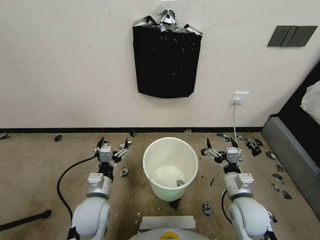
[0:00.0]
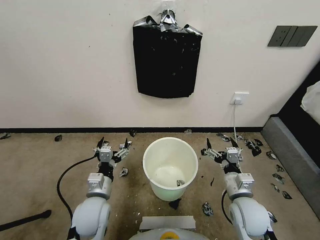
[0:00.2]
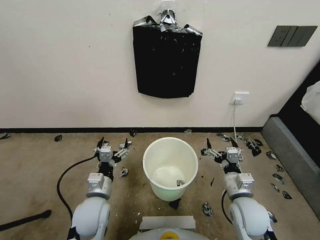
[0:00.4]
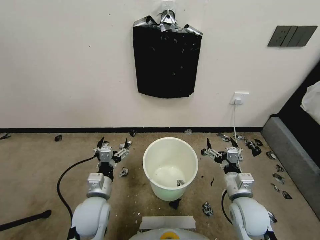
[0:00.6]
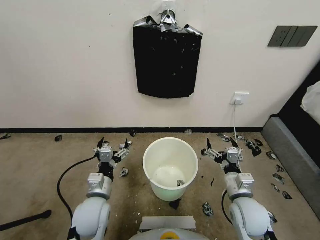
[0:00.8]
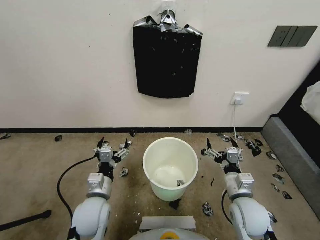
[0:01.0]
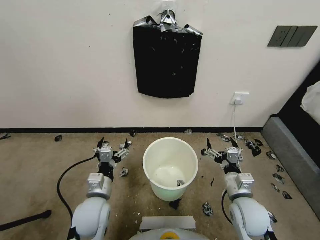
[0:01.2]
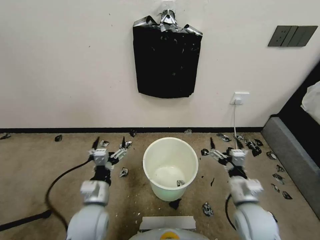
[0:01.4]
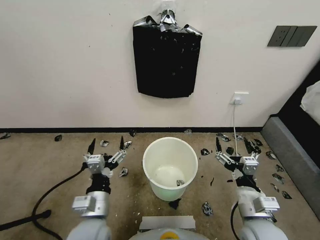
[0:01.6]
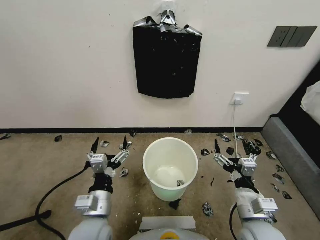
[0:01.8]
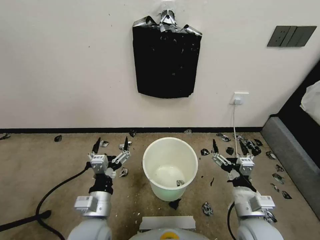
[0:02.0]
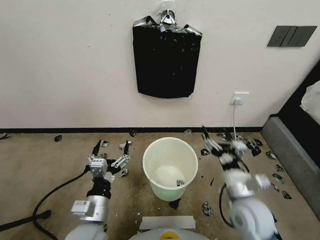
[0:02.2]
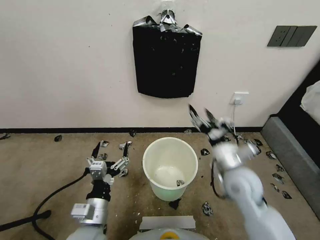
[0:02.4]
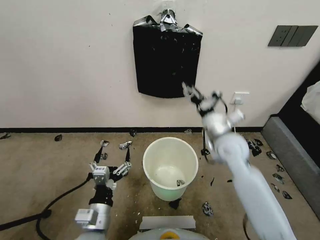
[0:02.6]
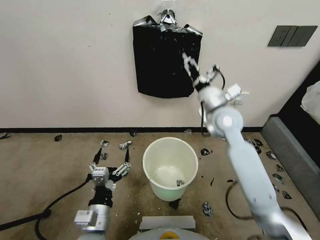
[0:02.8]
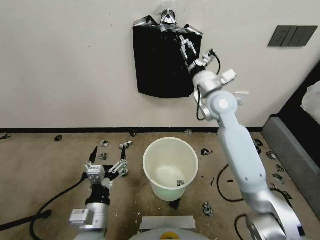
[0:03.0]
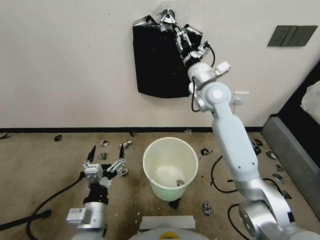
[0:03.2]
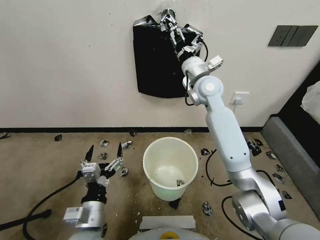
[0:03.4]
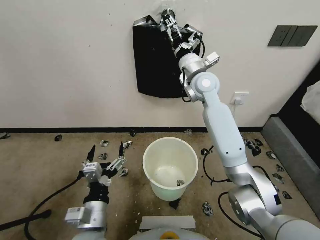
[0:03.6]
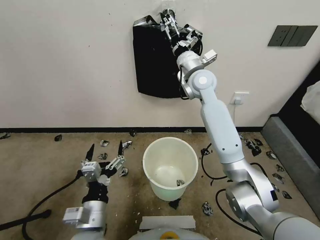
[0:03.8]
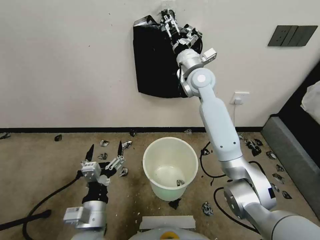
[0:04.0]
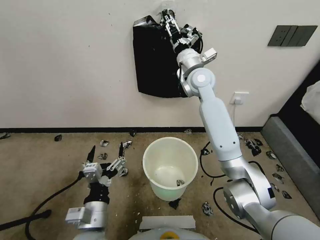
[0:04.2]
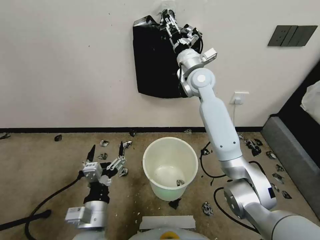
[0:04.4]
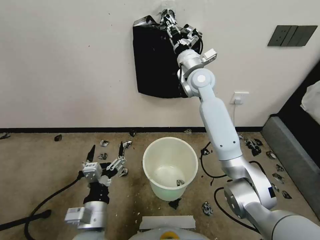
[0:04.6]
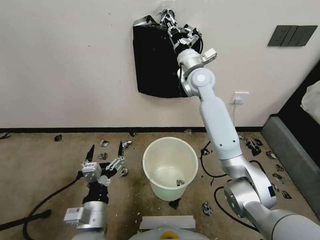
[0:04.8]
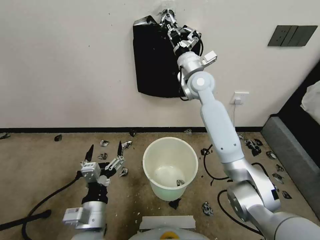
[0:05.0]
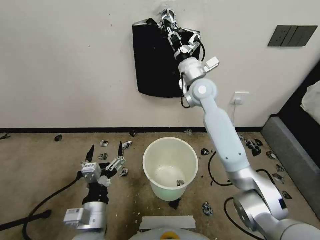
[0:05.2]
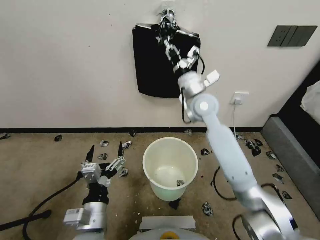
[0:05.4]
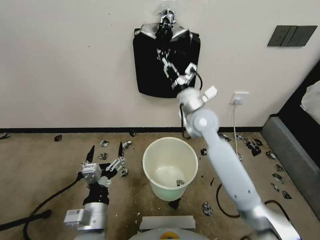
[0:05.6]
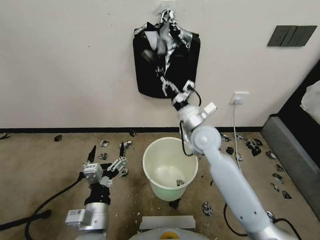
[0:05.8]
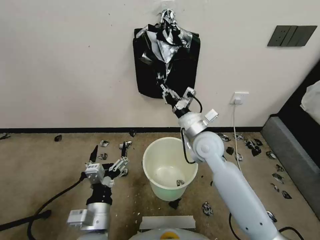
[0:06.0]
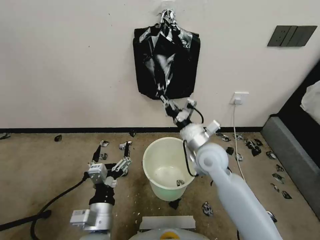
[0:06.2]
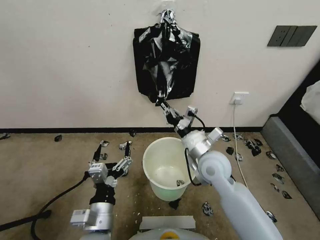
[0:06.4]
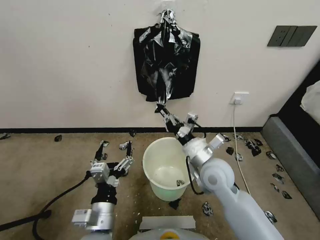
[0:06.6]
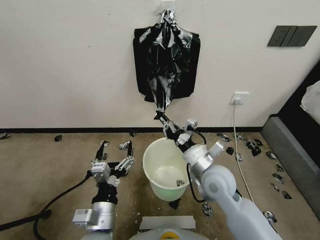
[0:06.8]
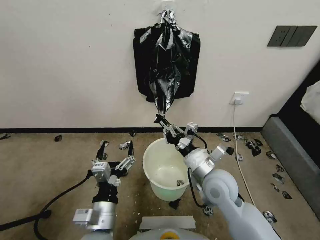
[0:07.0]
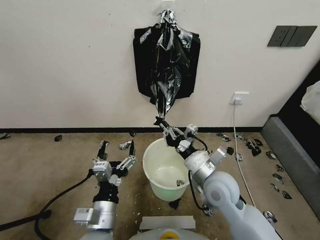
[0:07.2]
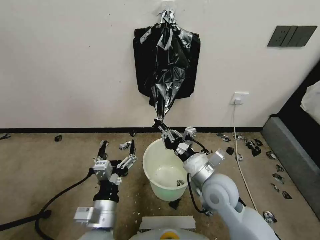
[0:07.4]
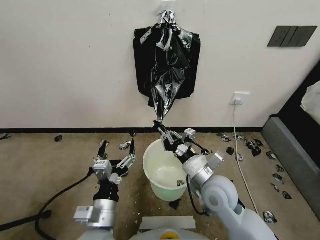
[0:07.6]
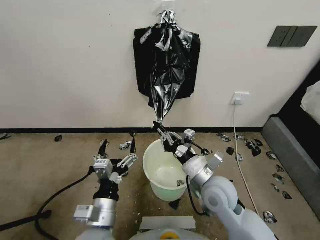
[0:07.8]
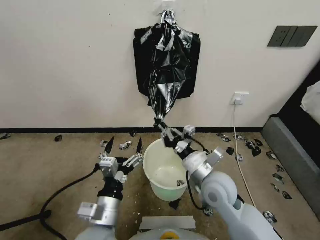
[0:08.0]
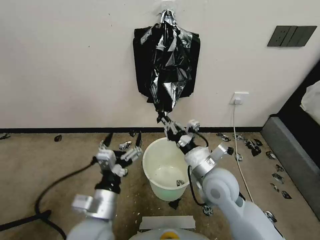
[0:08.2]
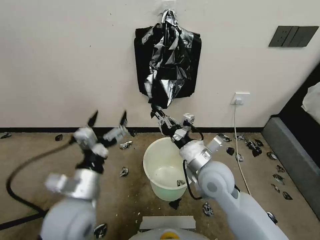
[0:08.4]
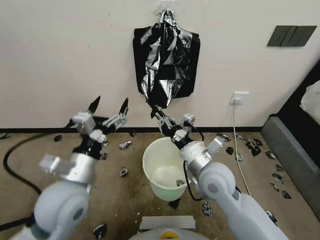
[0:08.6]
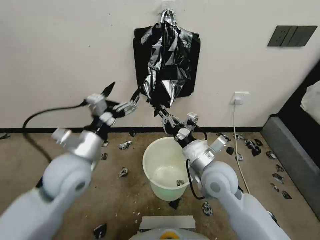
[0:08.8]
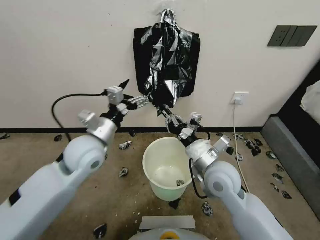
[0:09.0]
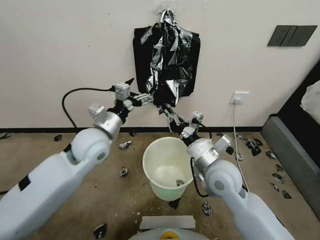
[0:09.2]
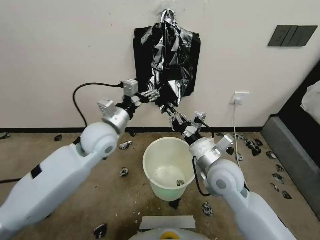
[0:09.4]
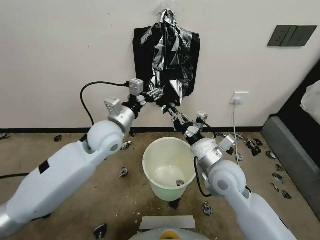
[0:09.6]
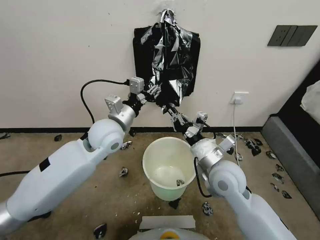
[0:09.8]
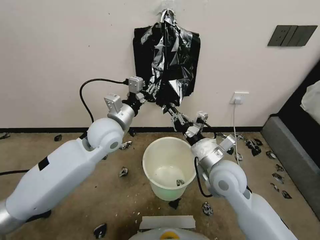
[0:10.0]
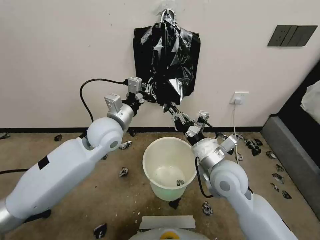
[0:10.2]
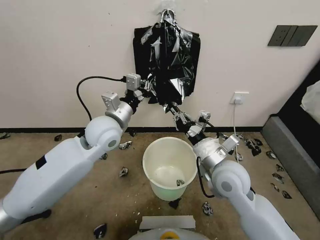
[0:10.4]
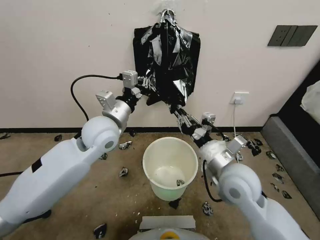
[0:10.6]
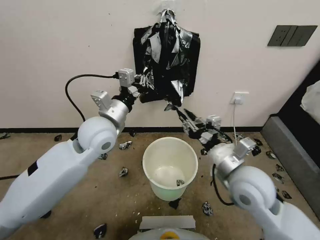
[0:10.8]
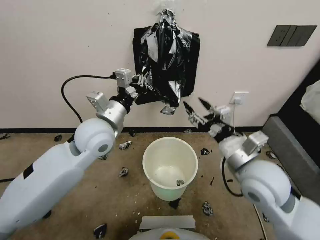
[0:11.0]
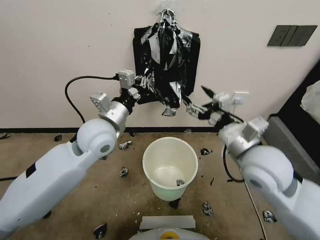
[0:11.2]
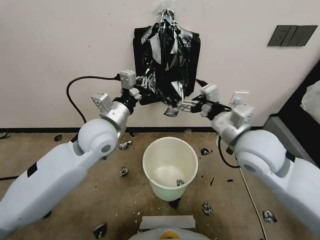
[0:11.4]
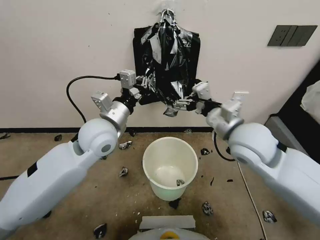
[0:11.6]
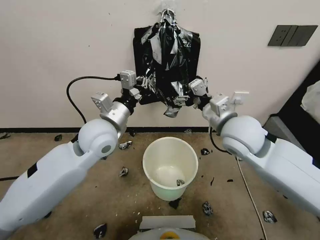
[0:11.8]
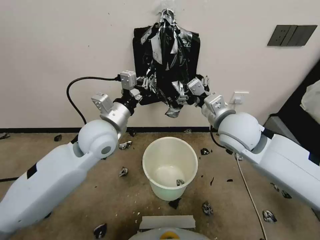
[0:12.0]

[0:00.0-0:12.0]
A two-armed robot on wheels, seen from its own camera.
Task of the whole recording: Place a trash bag onto the trash bin.
0:01.6 to 0:03.0: The right gripper moves forward and upward, roughly 35 cm.
0:03.0 to 0:04.4: The right gripper goes roughly 10 cm forward, and closes its fingers.
0:04.4 to 0:06.0: The right gripper goes approximately 20 cm backward and downward, and closes.
0:06.0 to 0:07.6: The right gripper goes roughly 15 cm backward and downward.
0:07.6 to 0:09.0: The left gripper is displaced forward and upward by about 20 cm.
0:09.0 to 0:10.4: The left gripper is displaced forward by some 5 cm, and closes.
0:10.4 to 0:12.0: The right gripper travels upward and forward by roughly 15 cm, and opens up.

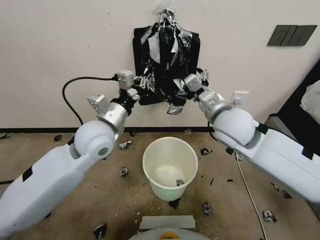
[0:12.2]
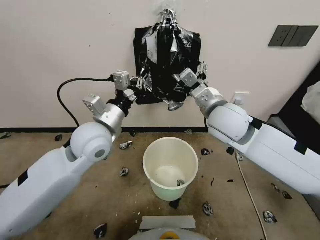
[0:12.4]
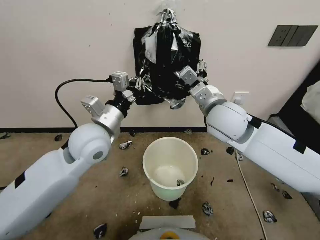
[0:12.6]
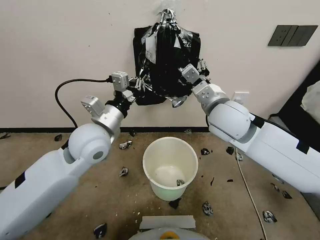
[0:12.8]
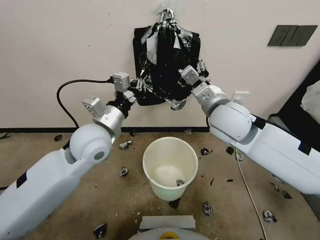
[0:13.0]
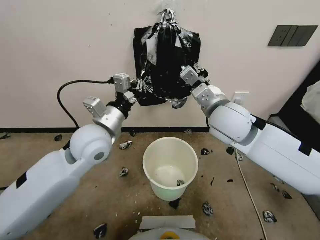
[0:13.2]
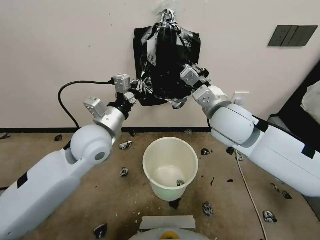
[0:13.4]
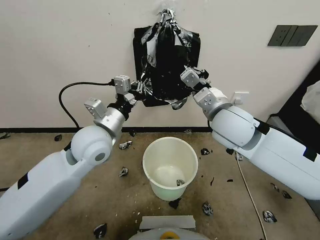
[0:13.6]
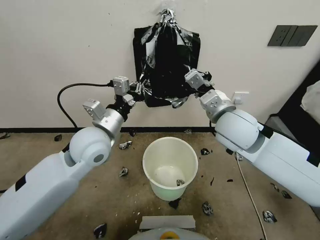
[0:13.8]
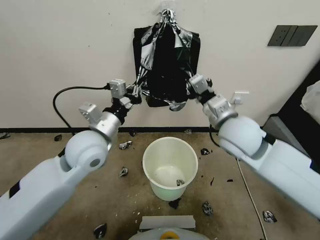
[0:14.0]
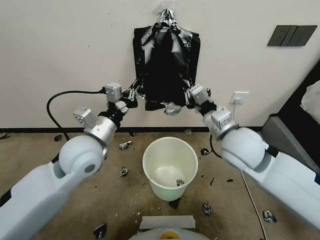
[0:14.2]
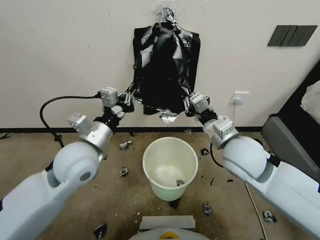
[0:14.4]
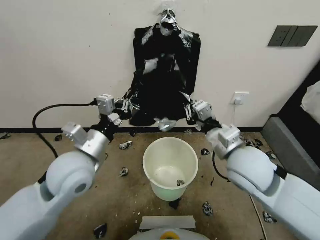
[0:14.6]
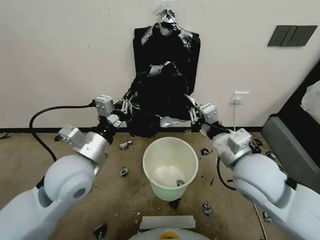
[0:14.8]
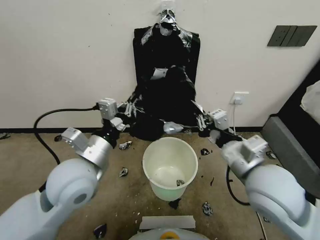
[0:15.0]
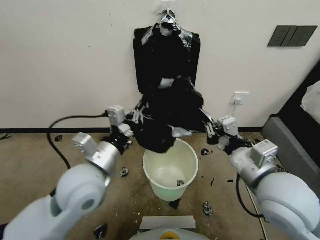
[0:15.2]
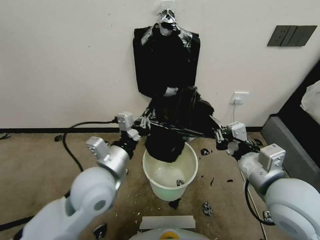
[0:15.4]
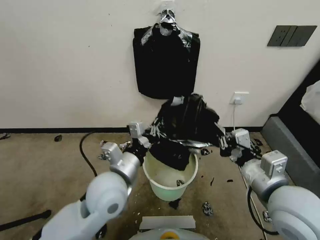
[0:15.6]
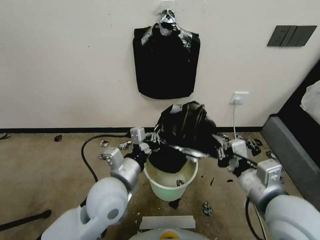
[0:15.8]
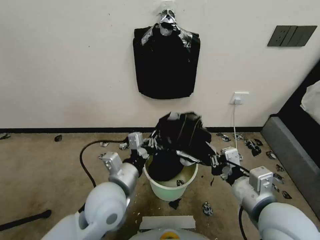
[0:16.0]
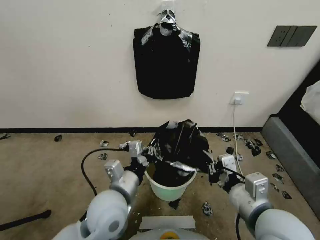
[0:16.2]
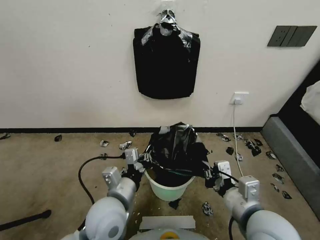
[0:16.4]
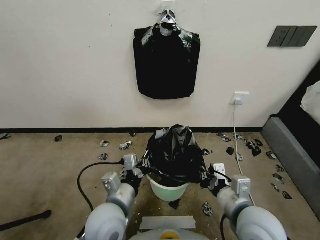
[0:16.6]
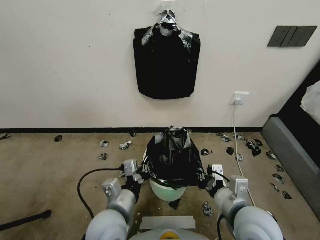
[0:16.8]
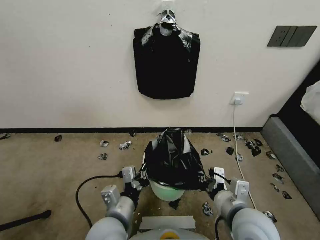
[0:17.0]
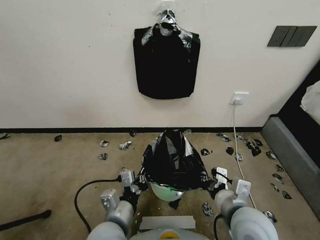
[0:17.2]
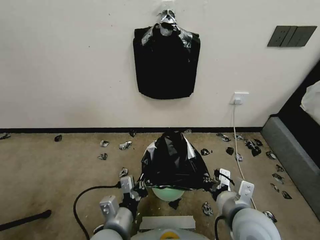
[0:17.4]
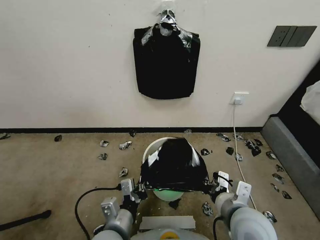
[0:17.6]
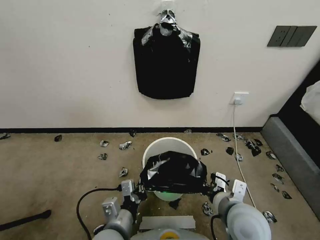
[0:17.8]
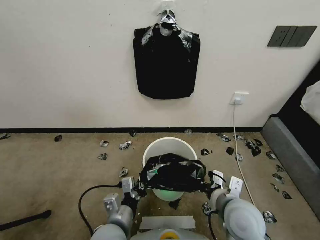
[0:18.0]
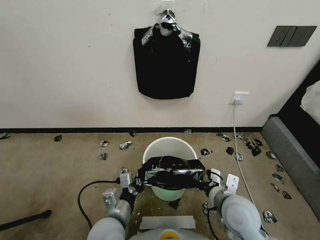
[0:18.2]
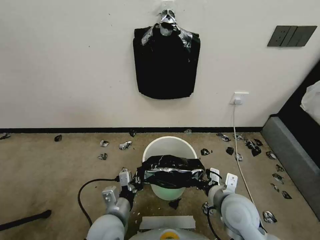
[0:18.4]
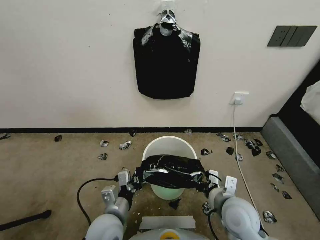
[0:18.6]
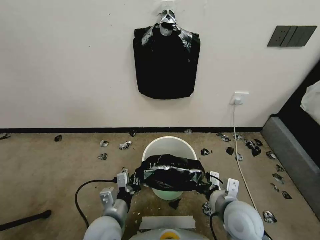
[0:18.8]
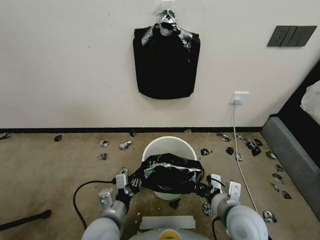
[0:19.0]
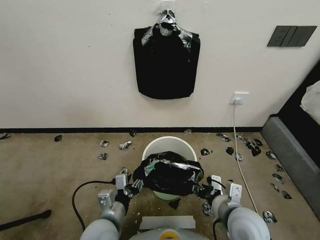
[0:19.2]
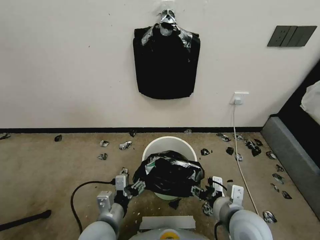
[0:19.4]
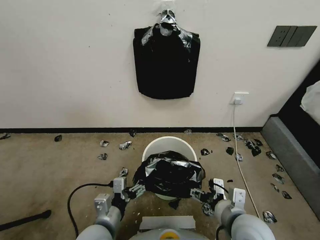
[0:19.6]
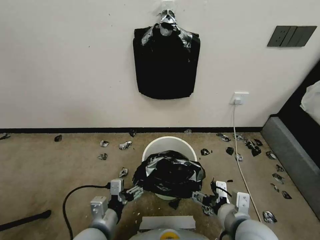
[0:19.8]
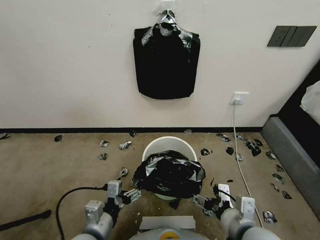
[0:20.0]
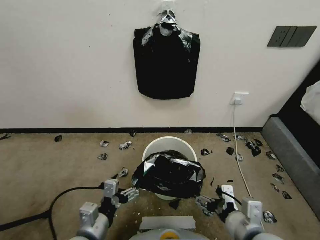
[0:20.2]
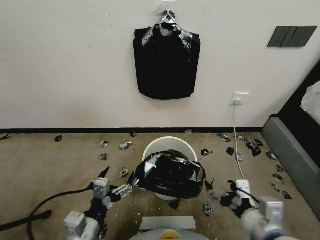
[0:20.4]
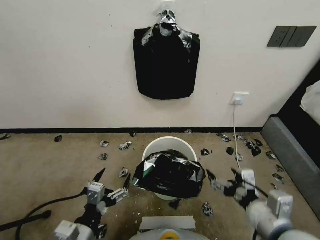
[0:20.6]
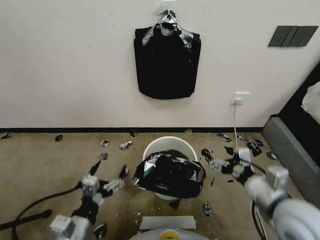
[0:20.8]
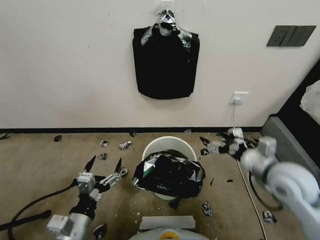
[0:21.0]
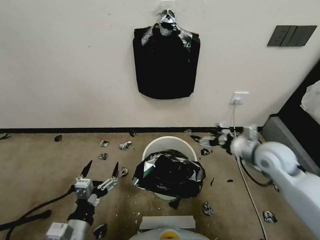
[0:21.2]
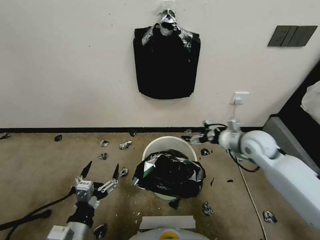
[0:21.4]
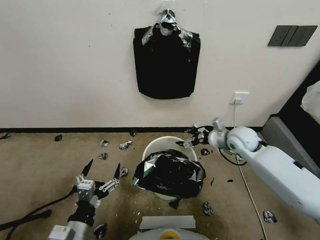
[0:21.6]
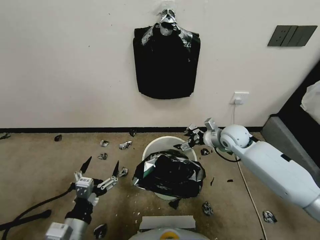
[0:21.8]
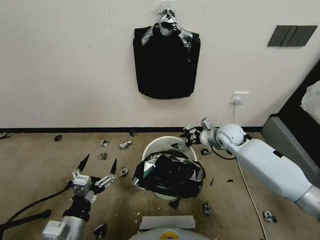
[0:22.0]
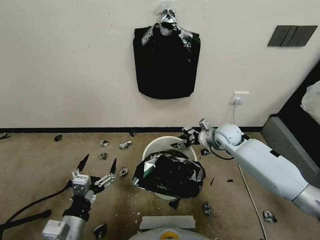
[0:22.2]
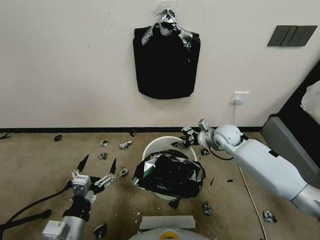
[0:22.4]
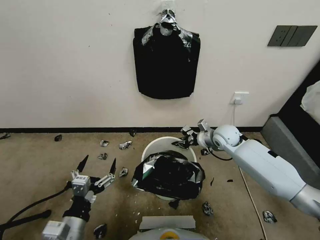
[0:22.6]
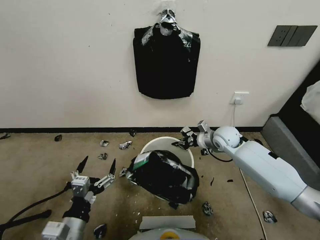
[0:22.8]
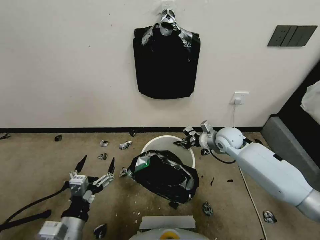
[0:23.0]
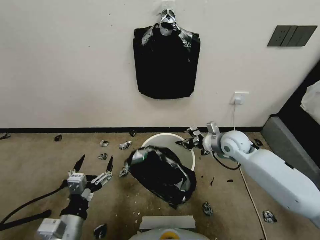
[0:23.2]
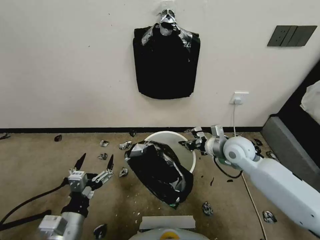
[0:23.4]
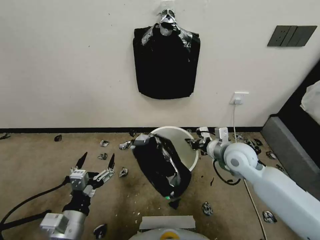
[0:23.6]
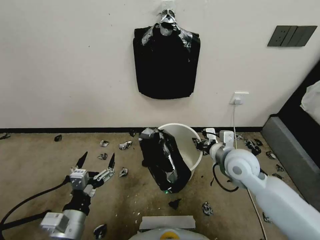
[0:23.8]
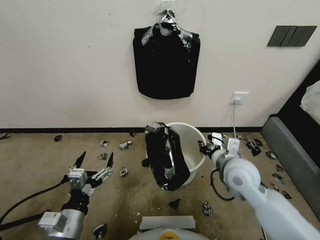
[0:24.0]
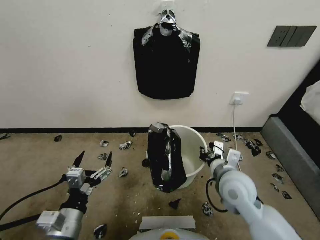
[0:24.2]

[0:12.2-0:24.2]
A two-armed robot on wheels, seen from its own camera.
Task of the whole recording: Place a trash bag onto the trash bin.
0:12.2 to 0:13.8: The right gripper closes up.
0:13.8 to 0:15.2: The right gripper moves backward and to the right, approximately 15 cm, while the left gripper shifts some 10 cm backward.
0:15.2 to 0:16.6: The left gripper moves downward and backward, about 10 cm; the right gripper shifts approximately 10 cm downward.
0:16.6 to 0:18.2: The grippers both shift downward by approximately 5 cm.
0:18.2 to 0:19.8: The left gripper opens its fingers, while the right gripper is displaced backward by some 5 cm, and opens its fingers.
0:19.8 to 0:21.2: The right gripper goes about 20 cm forward and to the right. The left gripper travels to the left by some 5 cm.
0:21.2 to 0:22.6: The right gripper heads forward, downward and to the left, covering approximately 15 cm, and closes.
0:22.6 to 0:24.2: The right gripper goes some 20 cm backward.
